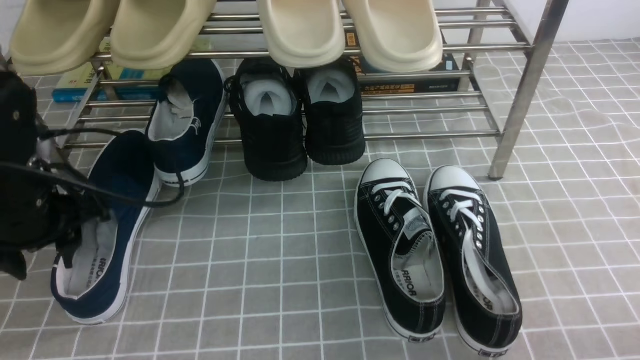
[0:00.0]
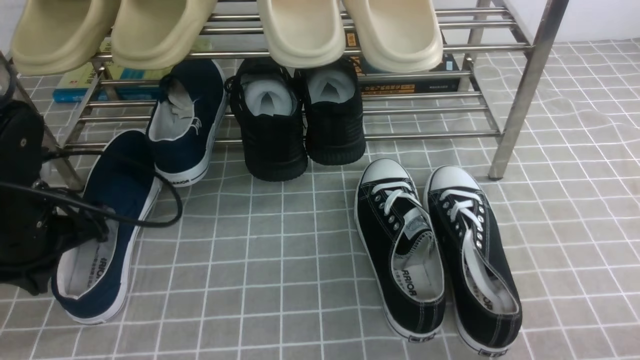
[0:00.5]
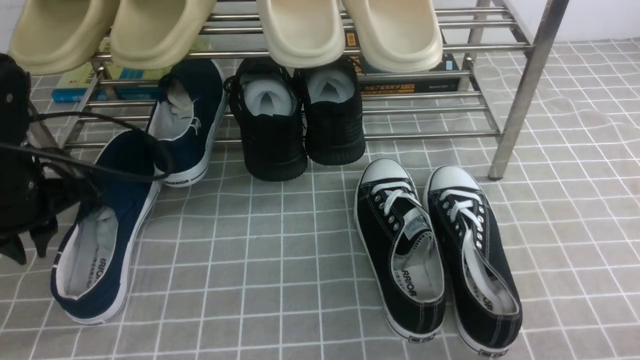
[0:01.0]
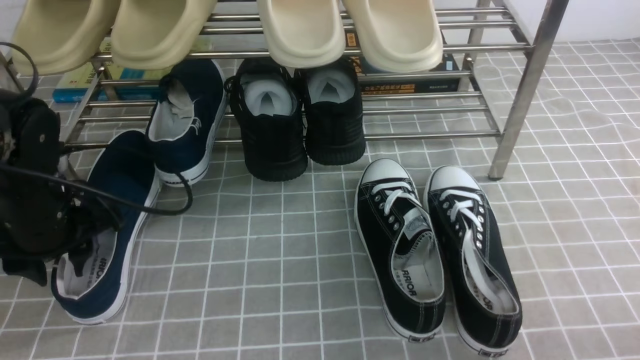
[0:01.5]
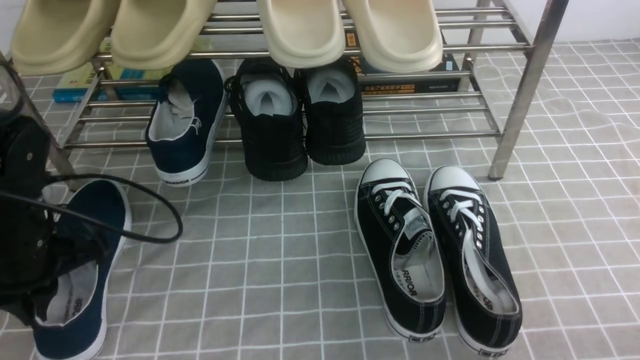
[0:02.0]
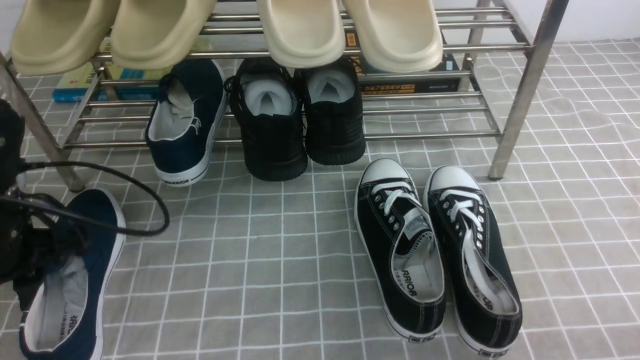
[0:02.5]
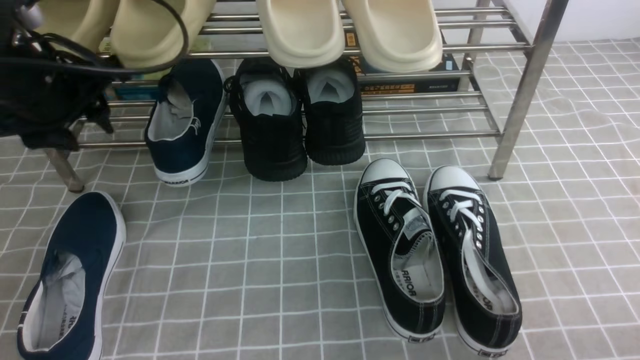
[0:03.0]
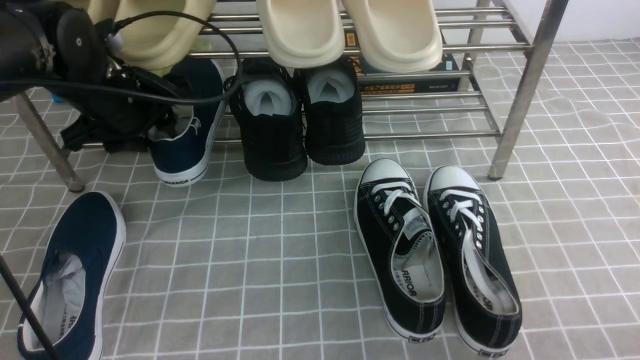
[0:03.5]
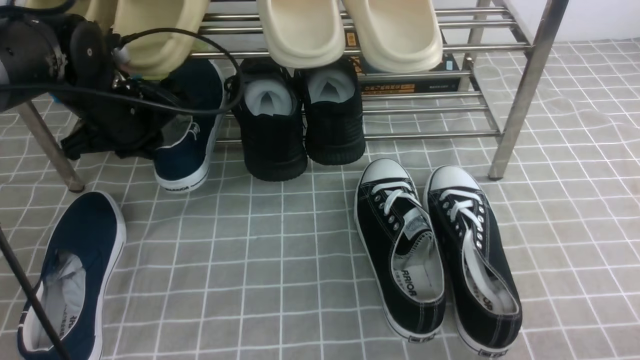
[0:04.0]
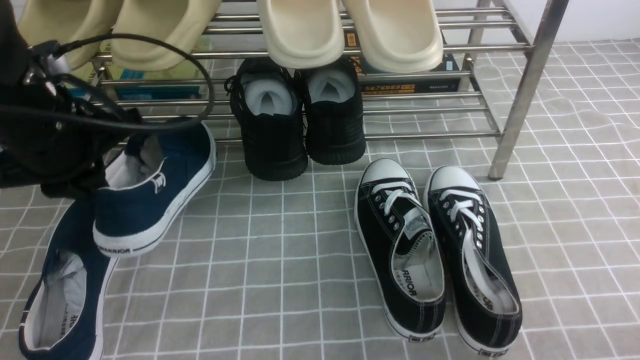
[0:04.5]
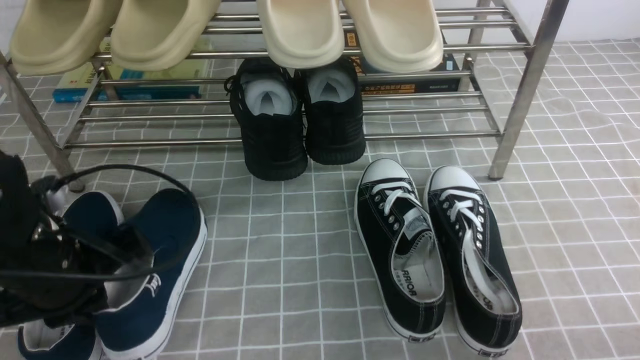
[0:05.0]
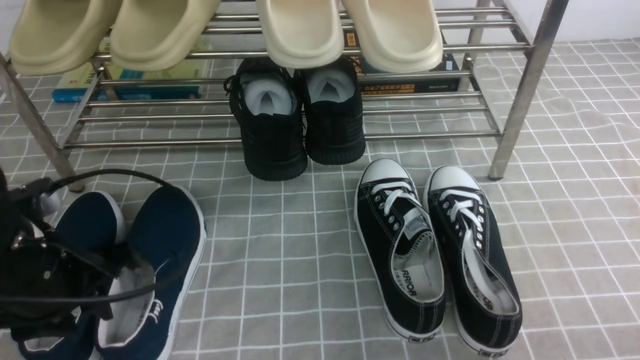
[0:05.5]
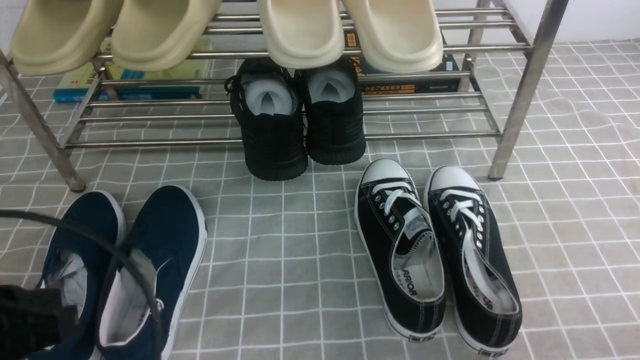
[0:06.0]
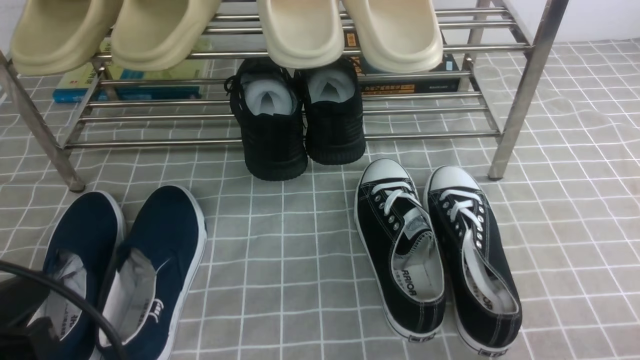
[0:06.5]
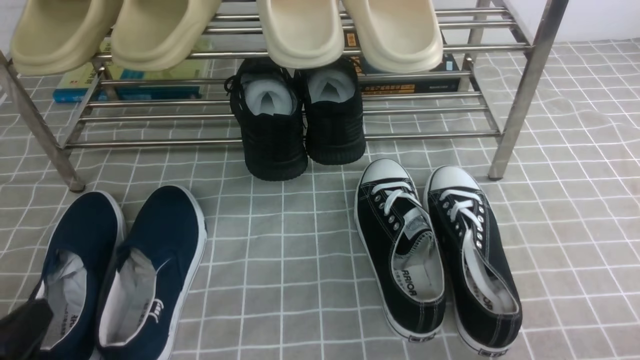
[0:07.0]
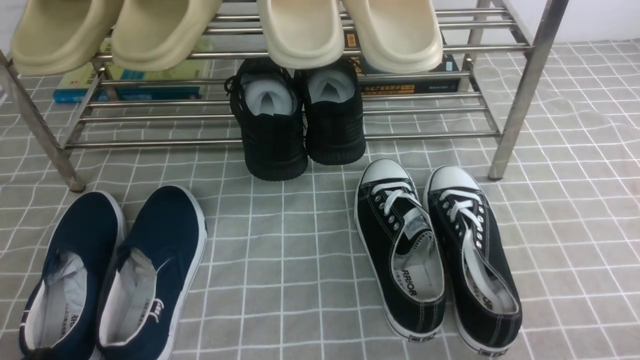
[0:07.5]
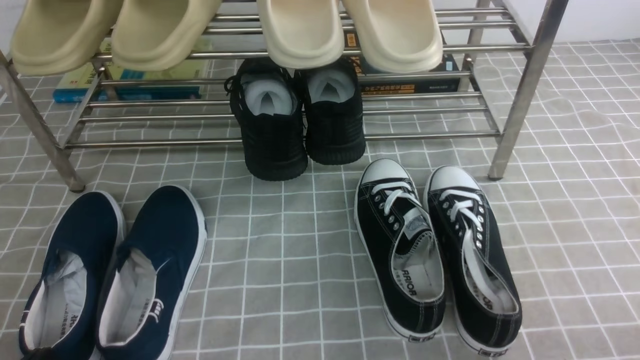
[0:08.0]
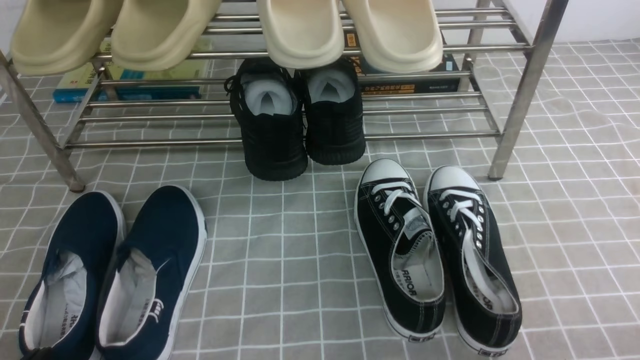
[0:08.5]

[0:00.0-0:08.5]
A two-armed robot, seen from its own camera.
Step, 0:00.0 to 0:04.0: use the left arm to clamp a shoe on the left side of the shoe rack.
Step, 0:04.5 to 0:05.5: Use your left arm to remove the clamped shoe from the shoe rack and put it down.
0:00.0 to 0:02.0: The left gripper closes up.
0:02.0 to 0:04.0: The left gripper moves forward, to the right and upward, roughly 15 cm, and opens, then closes again.
0:04.0 to 0:06.5: The left gripper is displaced backward by approximately 30 cm, and opens, then closes once more.
0:06.5 to 0:08.5: The left gripper travels downward by some 10 cm.
